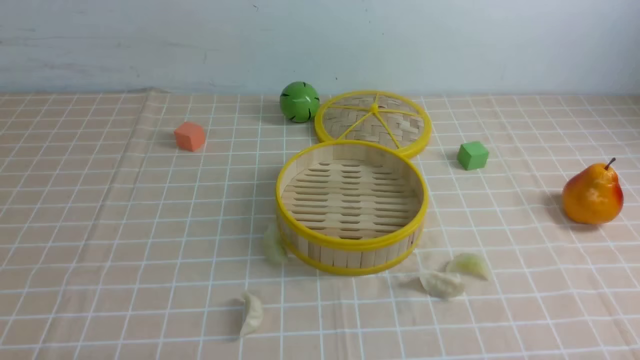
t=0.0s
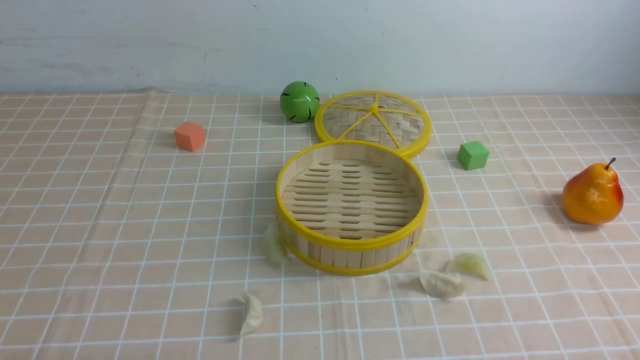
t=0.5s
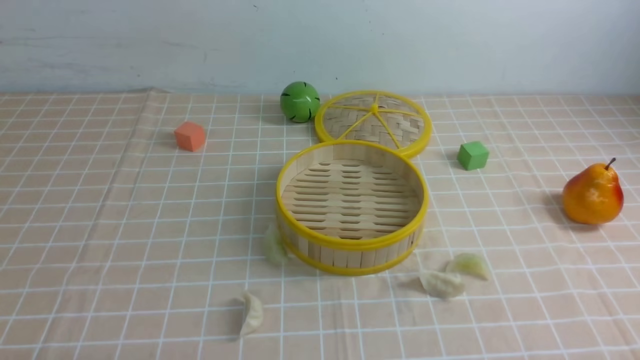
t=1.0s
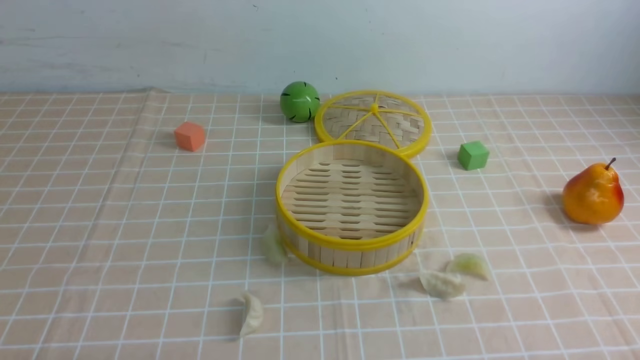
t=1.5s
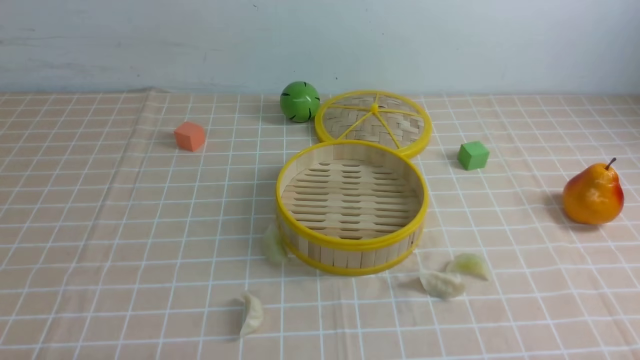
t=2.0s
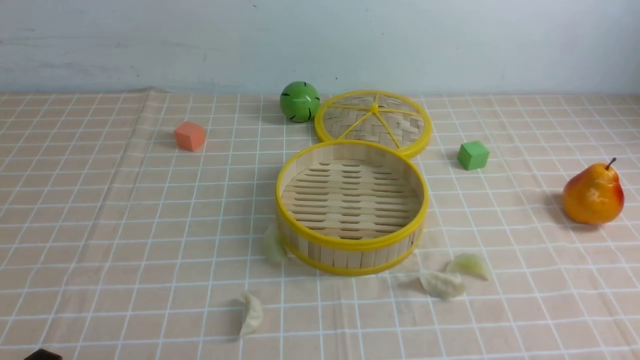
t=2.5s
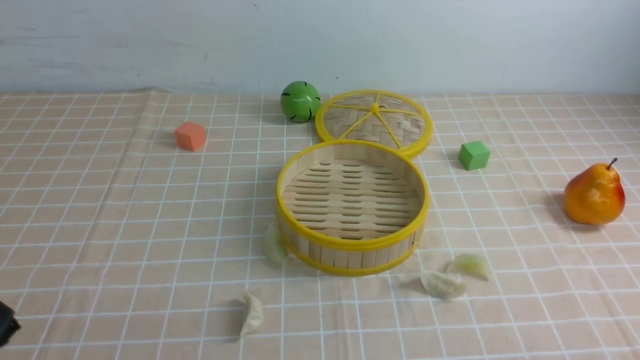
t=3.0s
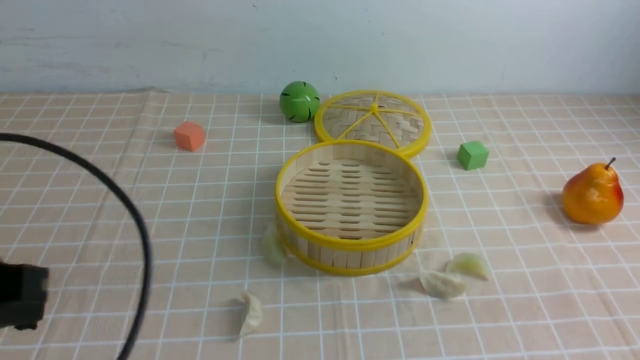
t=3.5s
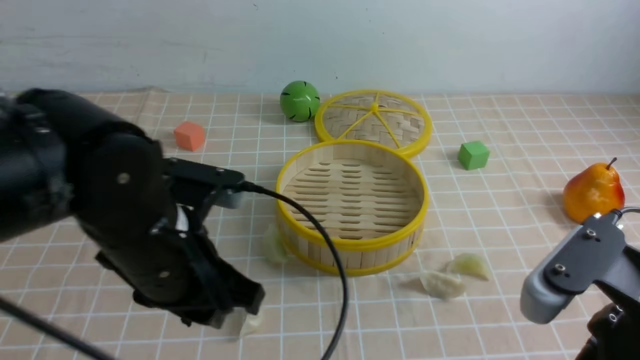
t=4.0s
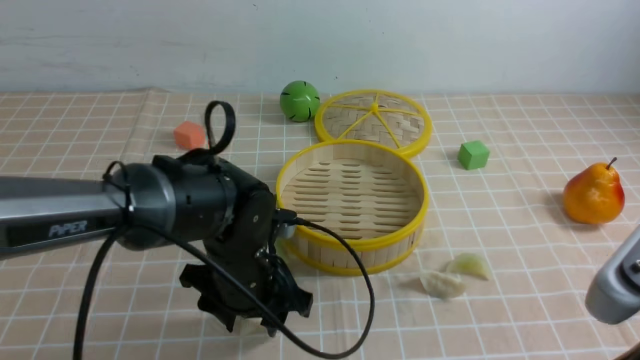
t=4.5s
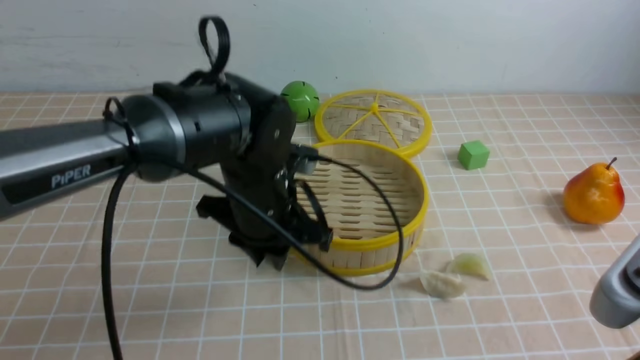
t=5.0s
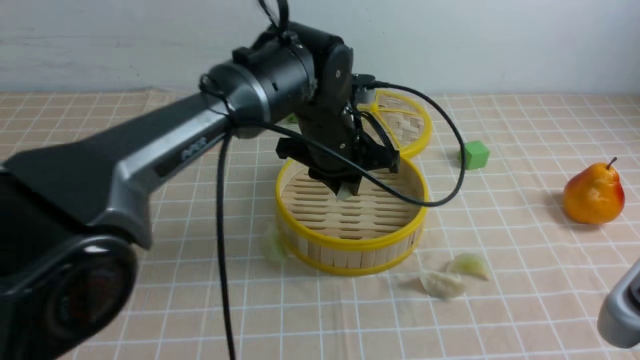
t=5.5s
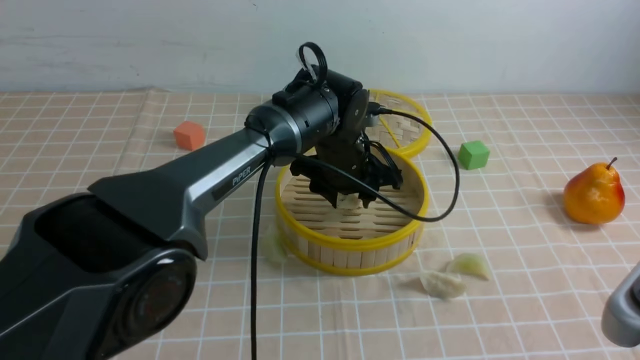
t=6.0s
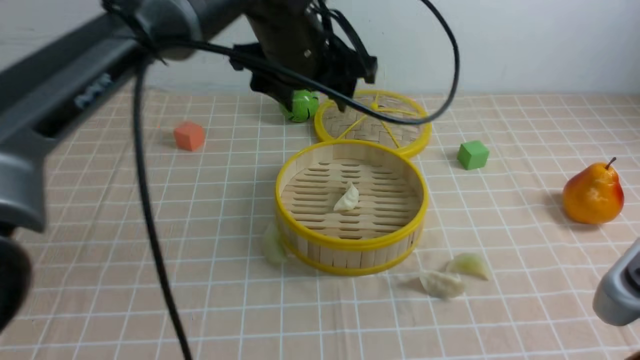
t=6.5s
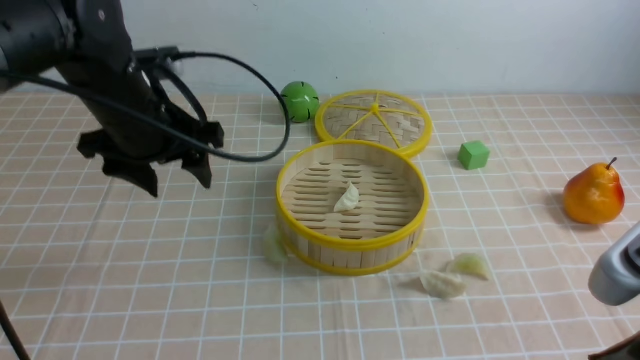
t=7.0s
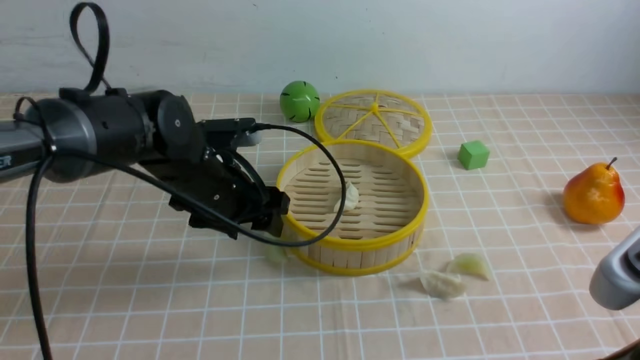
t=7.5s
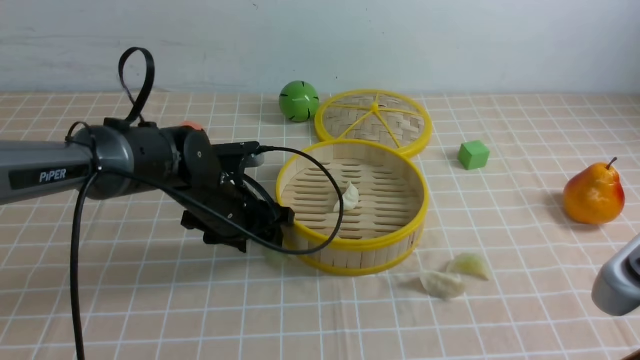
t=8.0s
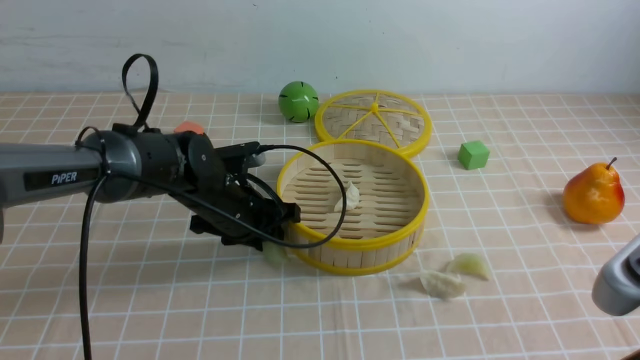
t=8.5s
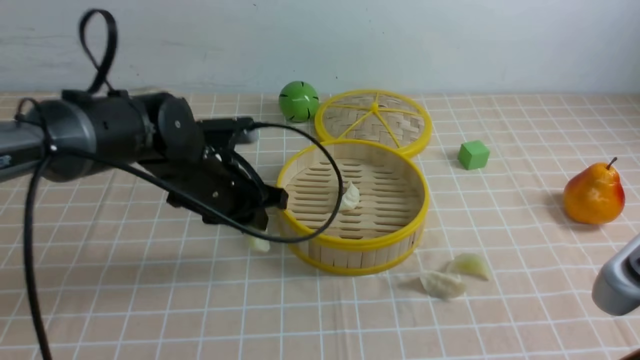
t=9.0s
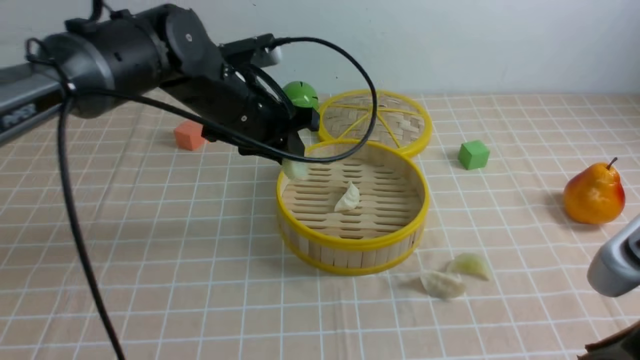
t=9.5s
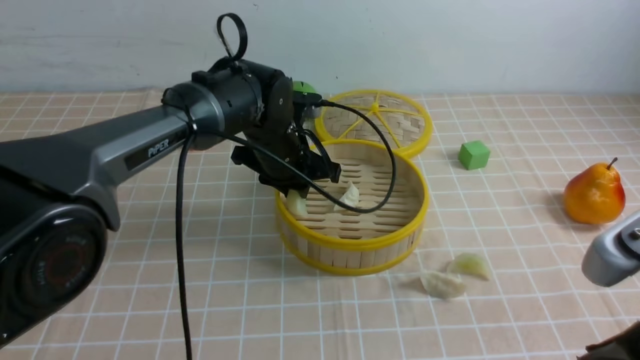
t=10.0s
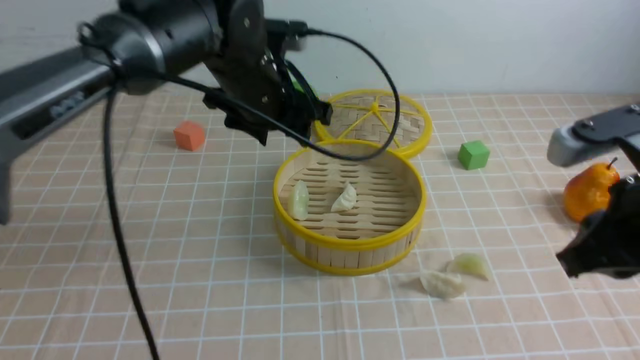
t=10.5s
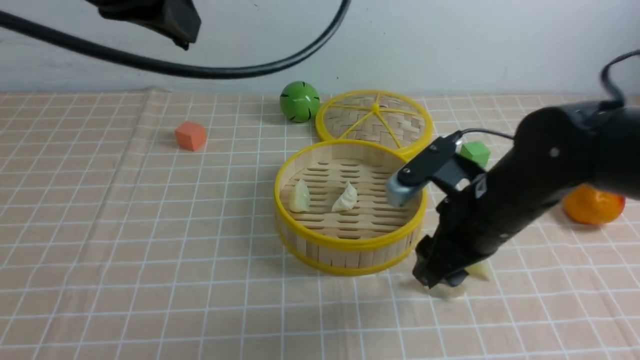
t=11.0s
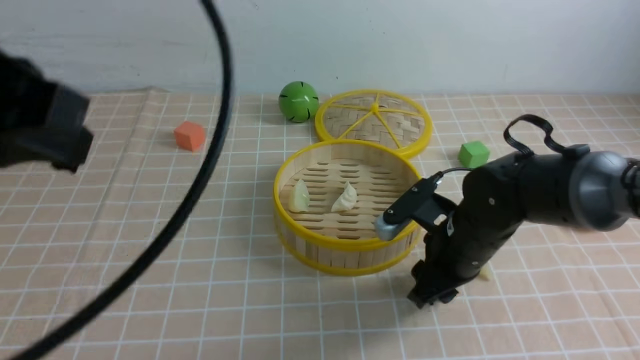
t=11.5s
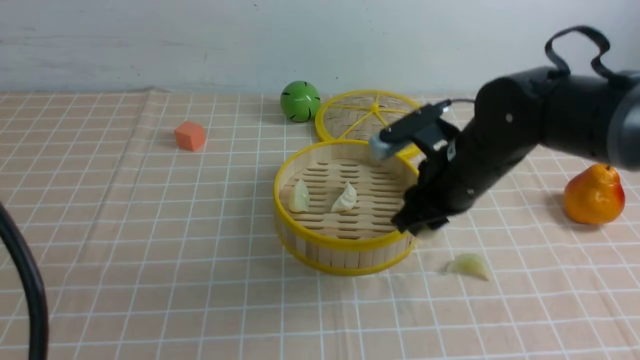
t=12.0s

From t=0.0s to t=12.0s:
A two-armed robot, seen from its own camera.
Task of the whole recording: put the dumplings into the steamer on the table with the brown tablecloth.
Step, from t=0.0s to t=4.5s: use the left arm to grab a dumpling.
Step, from t=5.0s to t=6.0s: use the left arm to put the dumpling into the steamer.
Step, from t=6.5s to t=8.5s: use the left arm to grab a dumpling.
Step, from t=9.0s to t=10.0s: use the left arm to put the dumpling into the steamer.
Step, from t=11.0s to t=11.5s: use the right arm to grab a dumpling.
From t=2.0s to t=4.0s: The left gripper moves forward, to the right and upward, roughly 25 cm, while the right gripper is displaced upward, to the left and forward by approximately 20 cm, and closes its fingers.
From t=4.0s to t=6.0s: The left gripper goes some 25 cm forward and to the right.
From t=6.0s to t=8.0s: The left gripper shifts approximately 15 cm to the left.
From t=8.0s to t=10.0s: The left gripper travels to the right, forward and upward by roughly 10 cm, and closes.
From t=10.0s to t=12.0s: The right gripper travels forward and downward by about 25 cm. The left gripper shifts approximately 40 cm backward, upward and to the left, and closes its fingers.

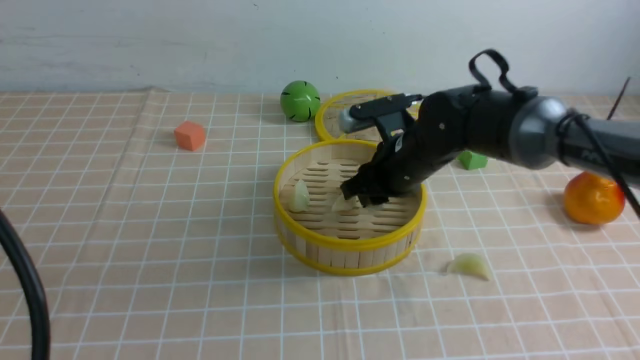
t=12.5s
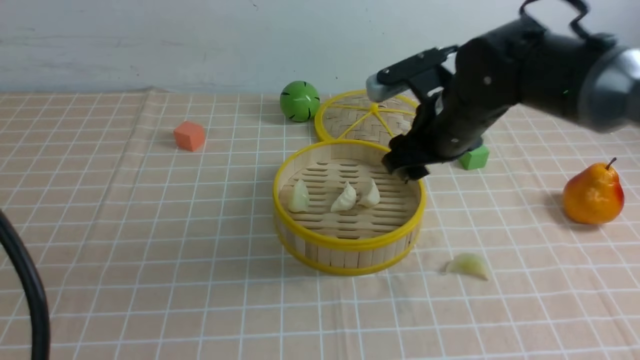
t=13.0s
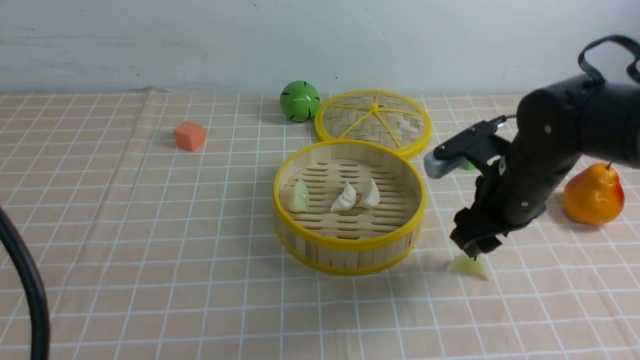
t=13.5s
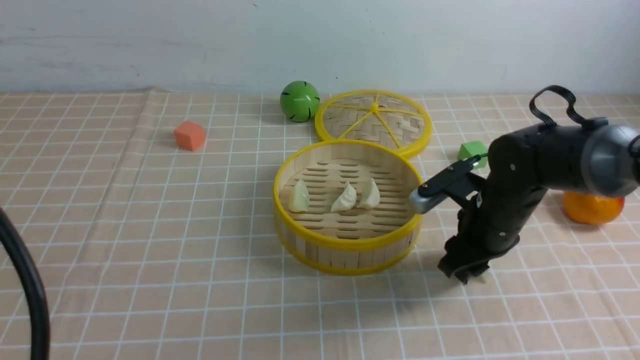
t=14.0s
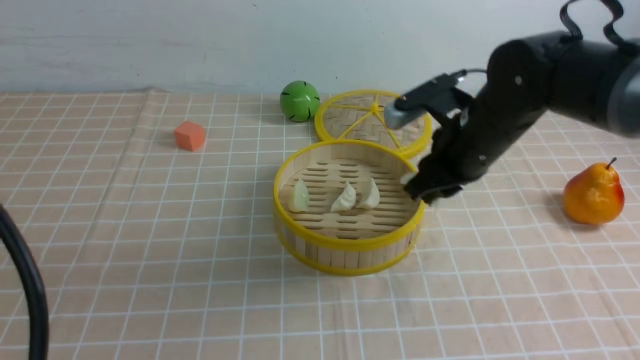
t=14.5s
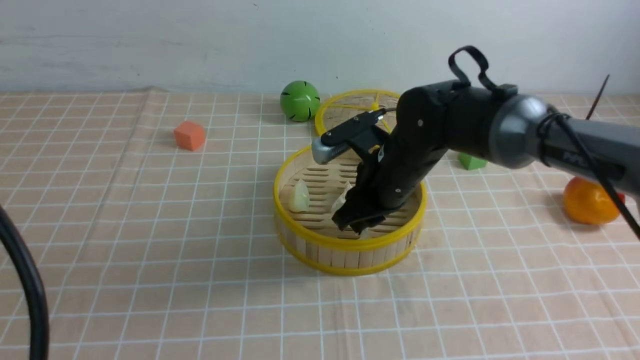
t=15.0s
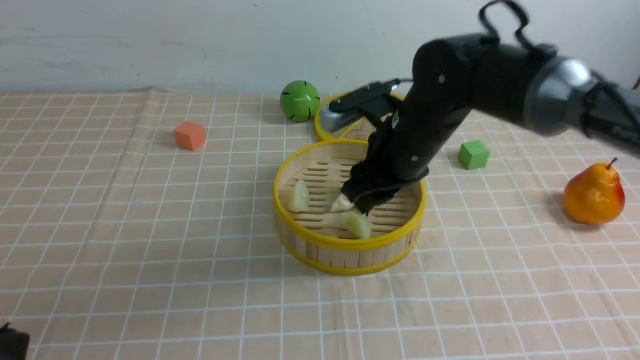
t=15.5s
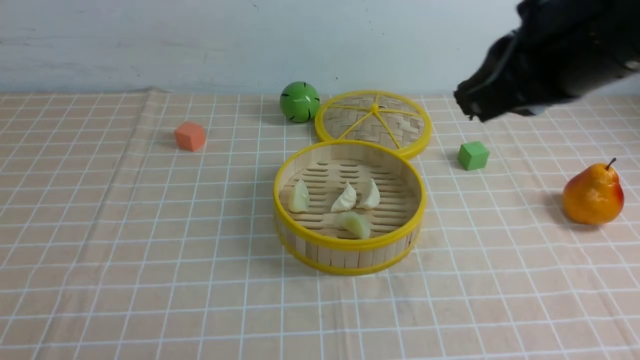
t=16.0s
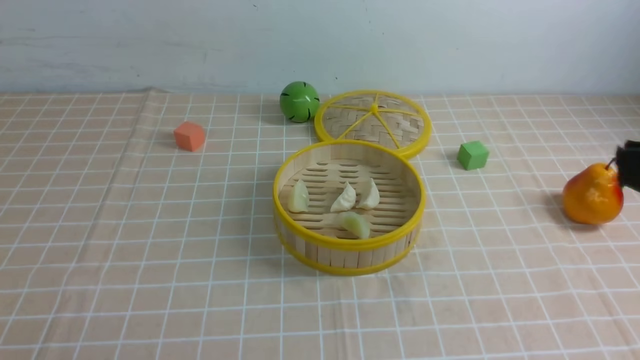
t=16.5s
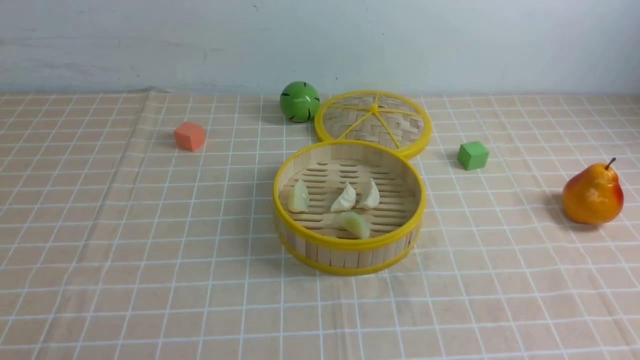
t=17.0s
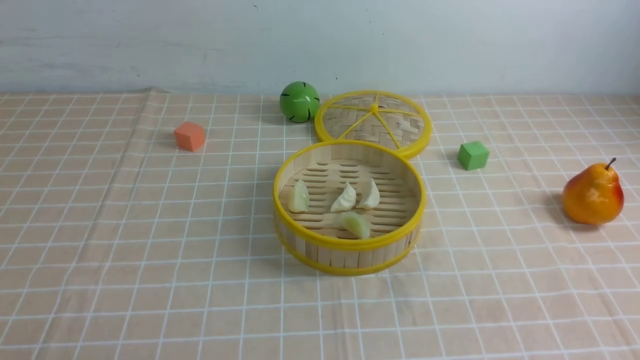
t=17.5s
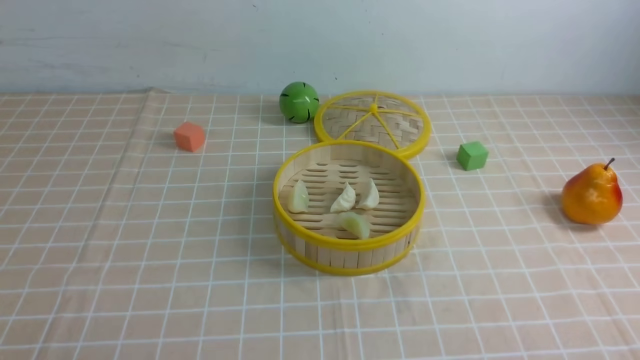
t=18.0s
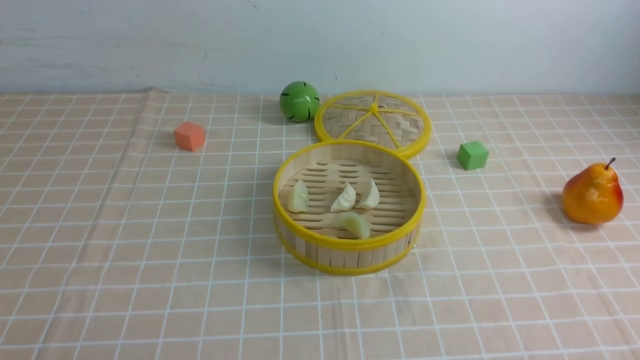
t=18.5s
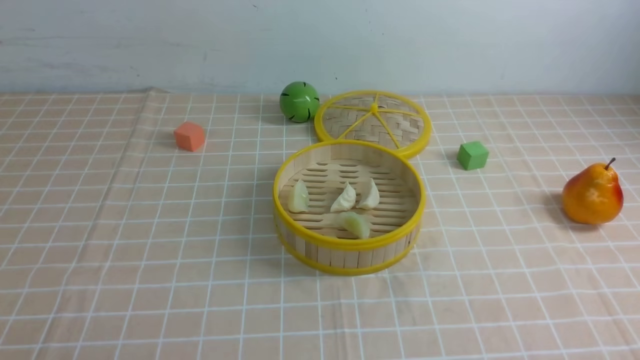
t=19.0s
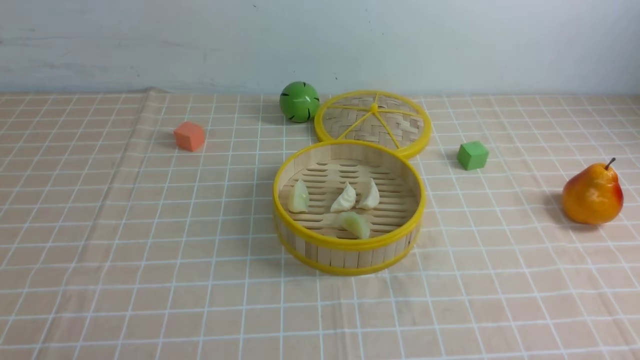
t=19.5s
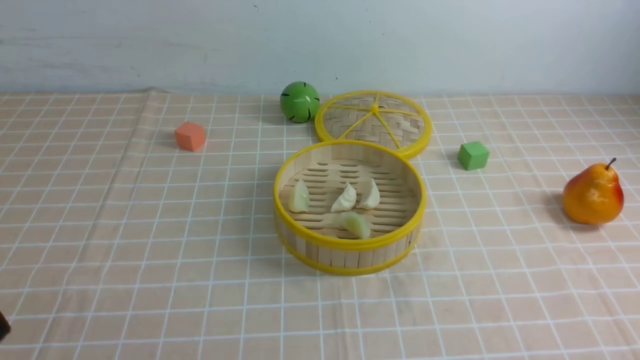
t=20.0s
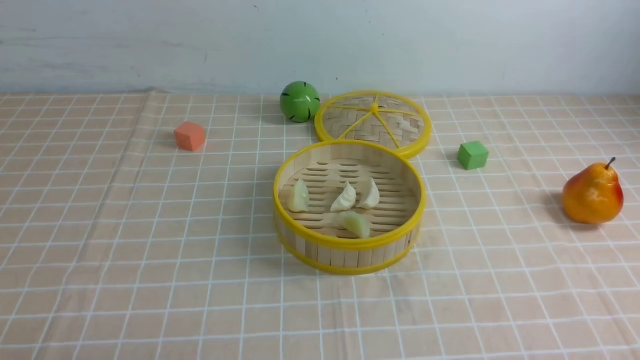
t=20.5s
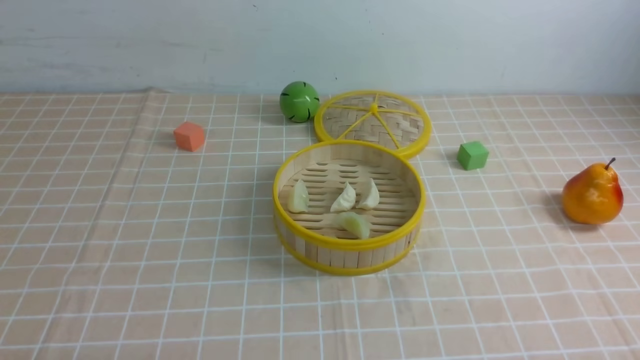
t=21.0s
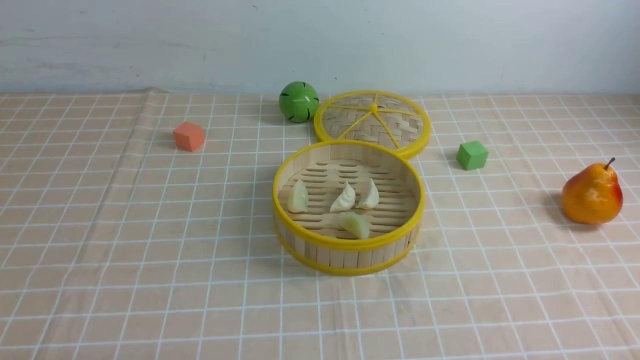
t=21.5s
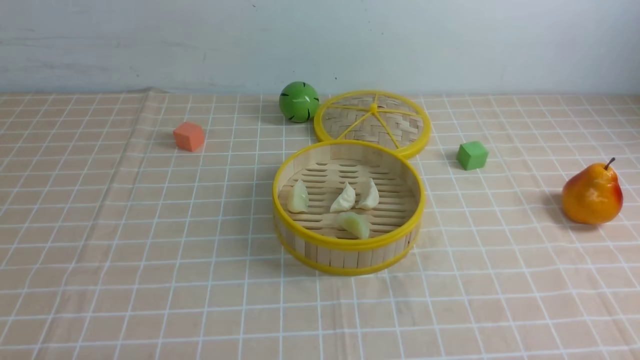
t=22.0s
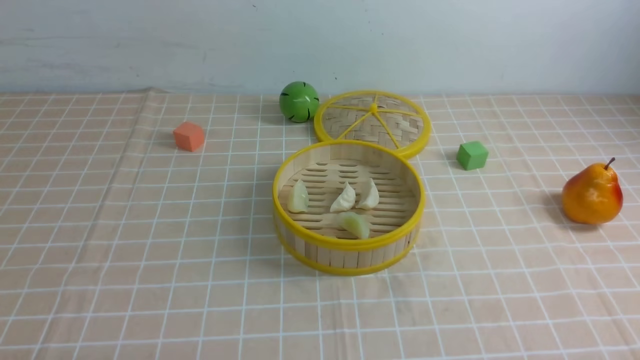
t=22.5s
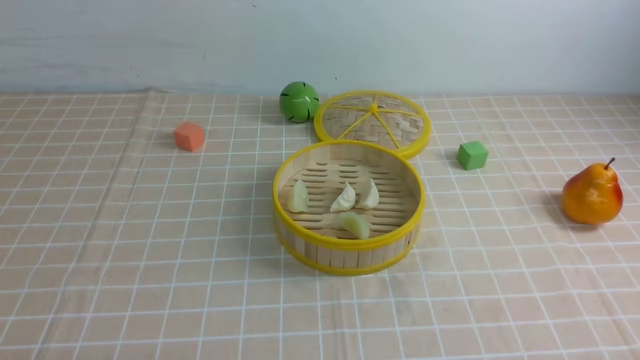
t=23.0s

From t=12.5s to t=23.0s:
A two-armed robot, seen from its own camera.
Task of the whole recording: put the dumplings into the steamer on the table with the brown tablecloth.
Step, from t=13.5s to t=14.0s: use the right arm to grab a dumpling.
Step, from t=14.5s to t=15.5s: use the right arm to put the dumpling into the steamer.
From t=12.5s to t=14.5s: The right gripper shifts about 5 cm to the right, moves roughly 5 cm downward and comes back, and opens and closes again.
From t=14.5s to t=16.5s: The right gripper goes some 30 cm backward and upward, and closes up. Meanwhile the left gripper moves downward and backward, roughly 15 cm.
From t=21.0s to t=23.0s: Both grippers stay about where they are.
